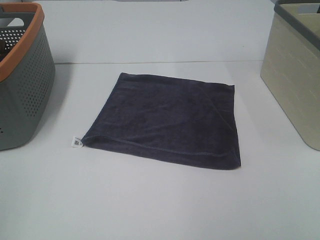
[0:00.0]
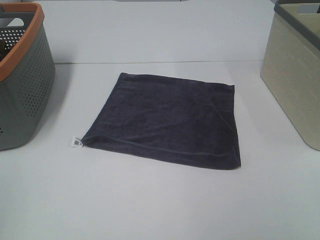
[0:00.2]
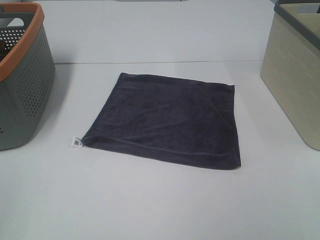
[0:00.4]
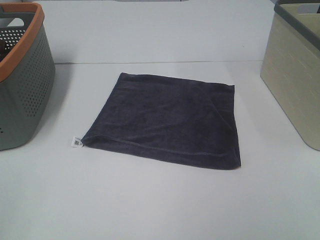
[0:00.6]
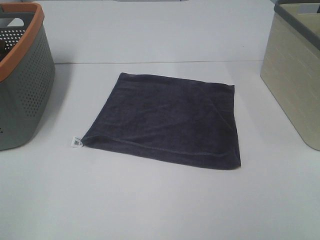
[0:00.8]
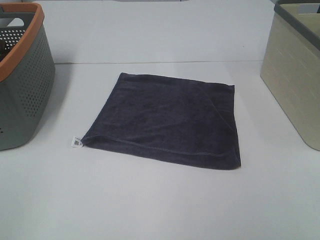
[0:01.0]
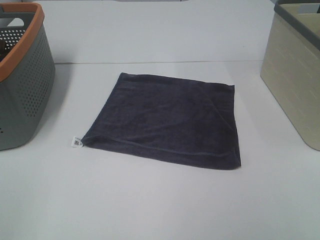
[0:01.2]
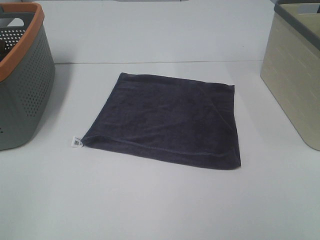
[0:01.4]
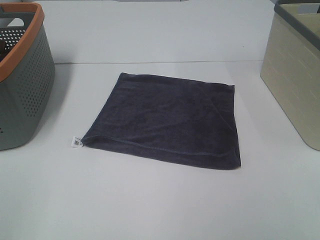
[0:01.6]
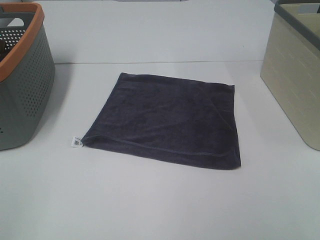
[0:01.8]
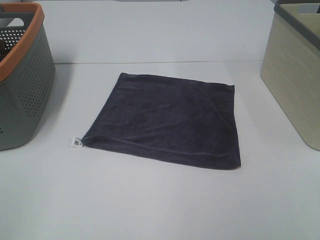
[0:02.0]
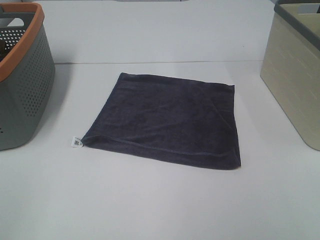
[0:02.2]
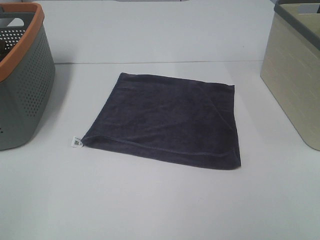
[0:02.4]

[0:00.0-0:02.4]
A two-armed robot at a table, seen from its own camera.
Task of the whole recording: Remove the towel and place it.
0:01.2 to 0:02.4: Neither gripper changes place.

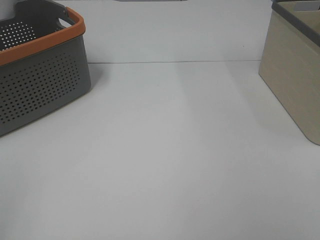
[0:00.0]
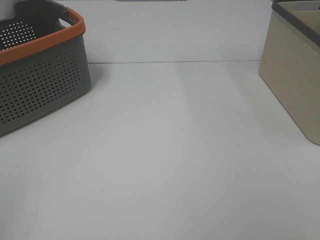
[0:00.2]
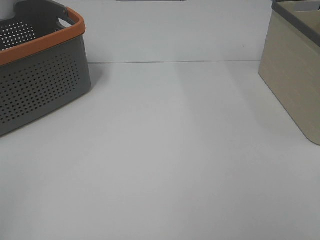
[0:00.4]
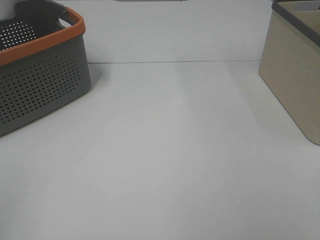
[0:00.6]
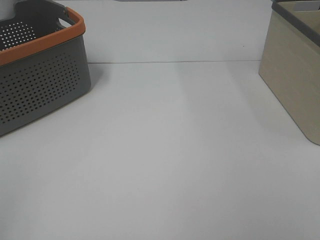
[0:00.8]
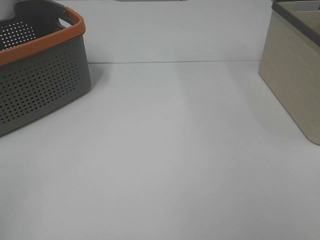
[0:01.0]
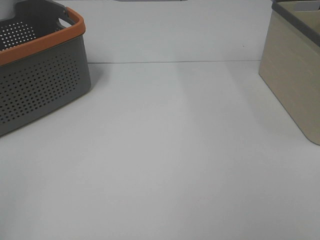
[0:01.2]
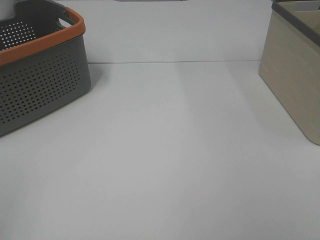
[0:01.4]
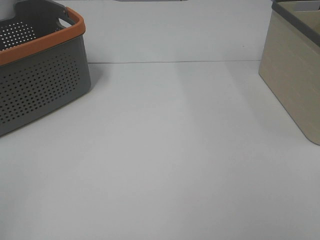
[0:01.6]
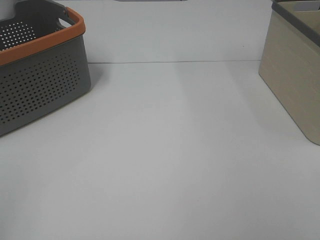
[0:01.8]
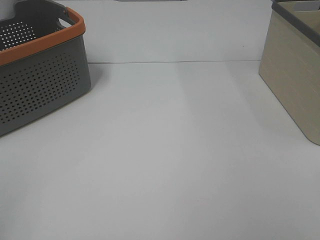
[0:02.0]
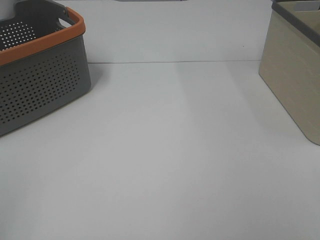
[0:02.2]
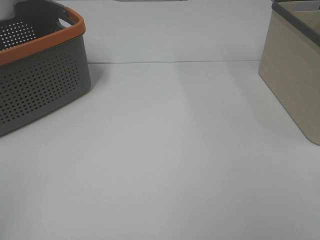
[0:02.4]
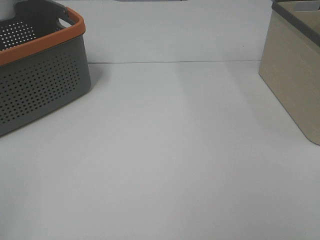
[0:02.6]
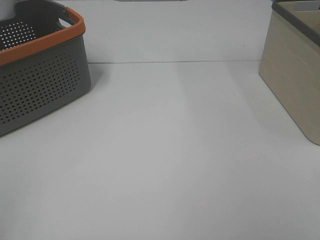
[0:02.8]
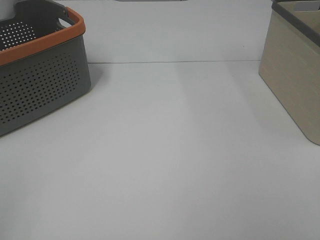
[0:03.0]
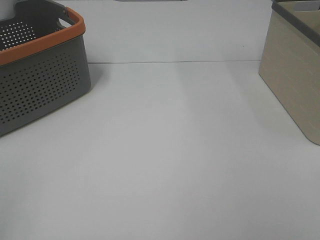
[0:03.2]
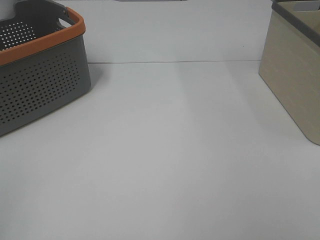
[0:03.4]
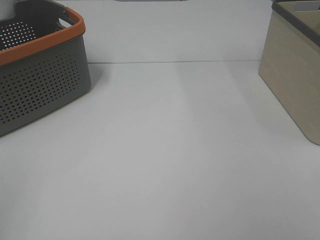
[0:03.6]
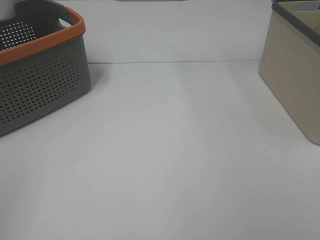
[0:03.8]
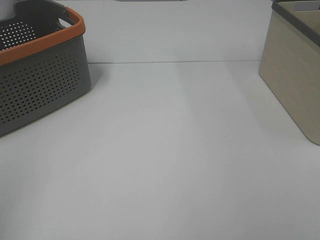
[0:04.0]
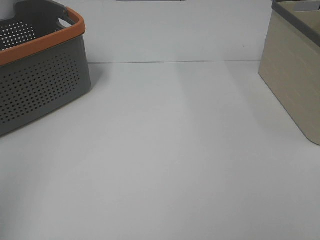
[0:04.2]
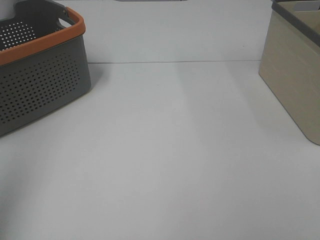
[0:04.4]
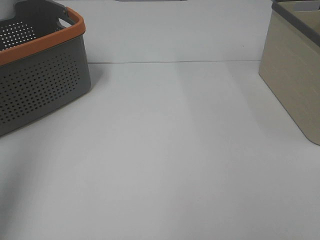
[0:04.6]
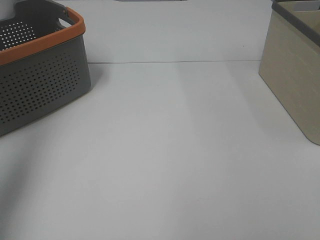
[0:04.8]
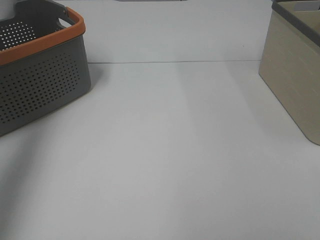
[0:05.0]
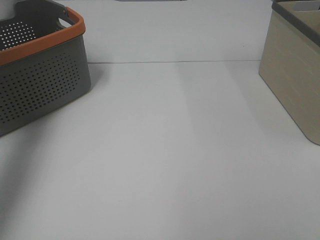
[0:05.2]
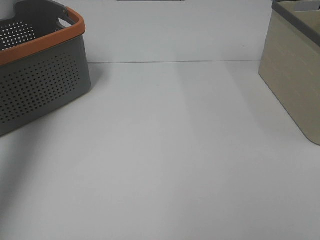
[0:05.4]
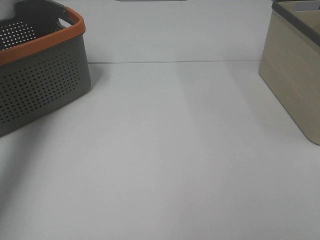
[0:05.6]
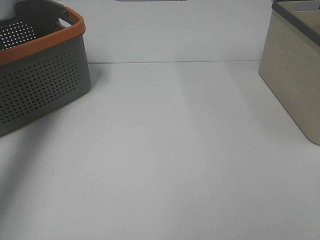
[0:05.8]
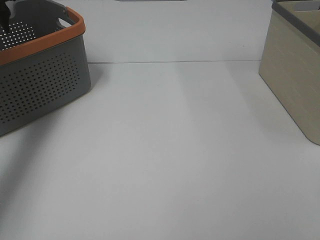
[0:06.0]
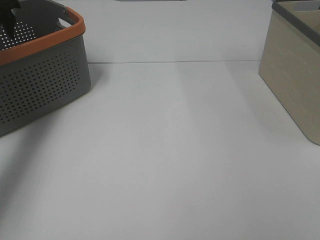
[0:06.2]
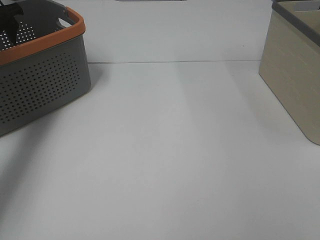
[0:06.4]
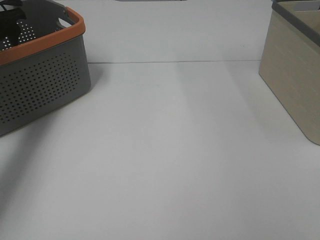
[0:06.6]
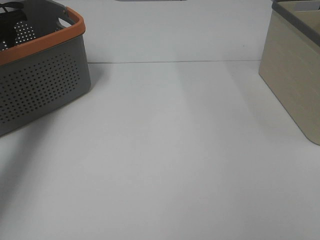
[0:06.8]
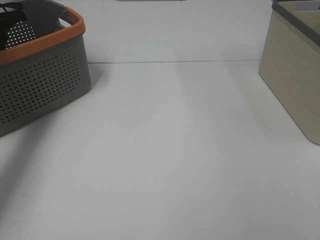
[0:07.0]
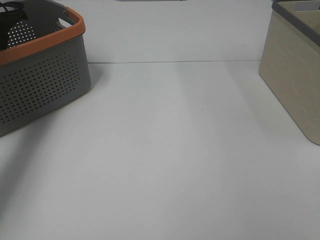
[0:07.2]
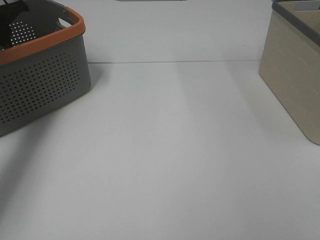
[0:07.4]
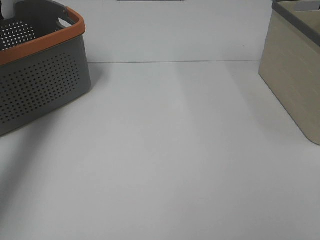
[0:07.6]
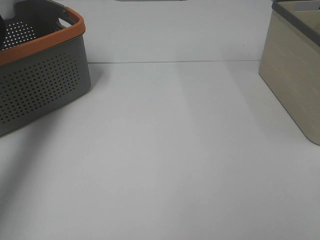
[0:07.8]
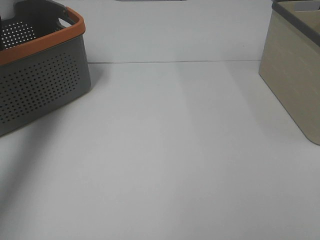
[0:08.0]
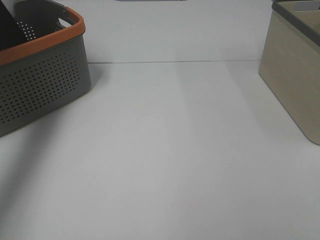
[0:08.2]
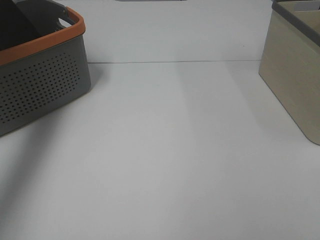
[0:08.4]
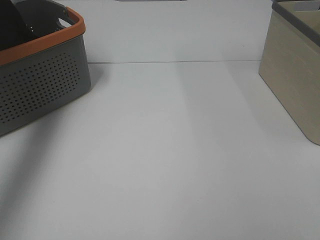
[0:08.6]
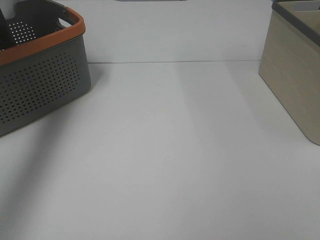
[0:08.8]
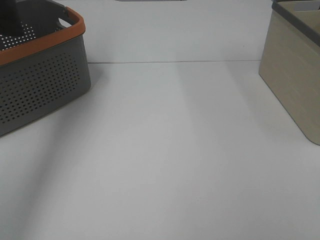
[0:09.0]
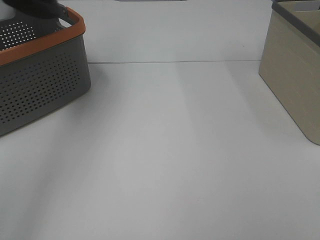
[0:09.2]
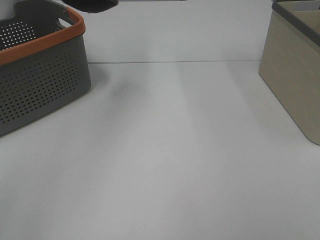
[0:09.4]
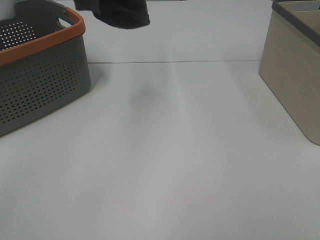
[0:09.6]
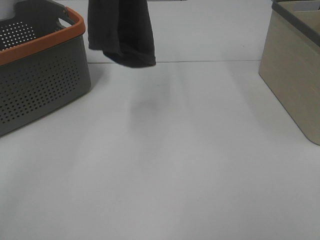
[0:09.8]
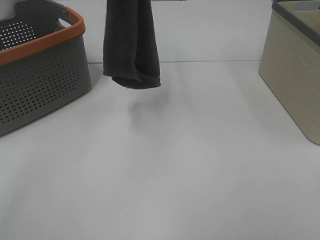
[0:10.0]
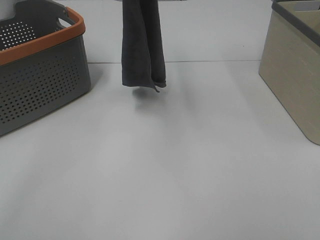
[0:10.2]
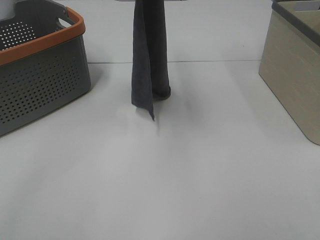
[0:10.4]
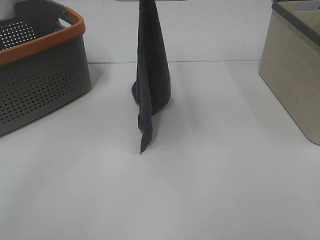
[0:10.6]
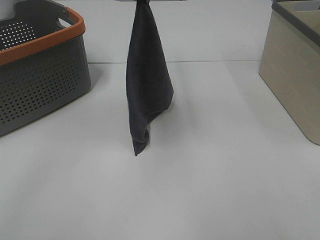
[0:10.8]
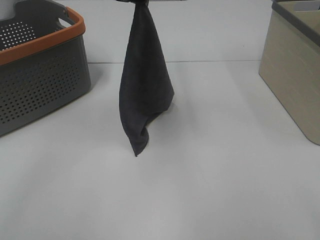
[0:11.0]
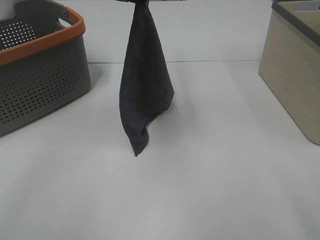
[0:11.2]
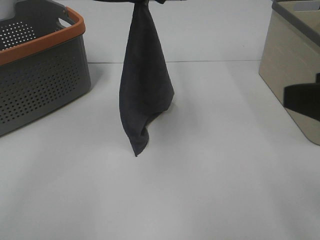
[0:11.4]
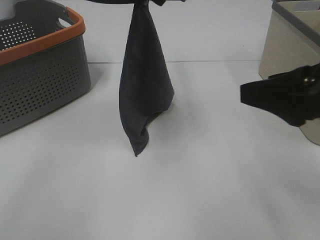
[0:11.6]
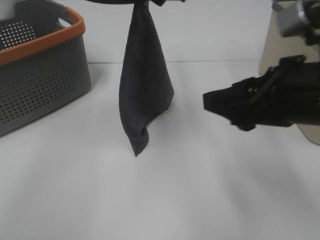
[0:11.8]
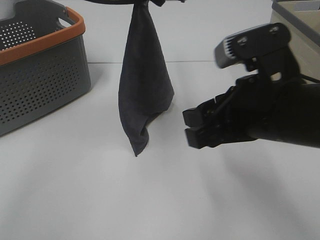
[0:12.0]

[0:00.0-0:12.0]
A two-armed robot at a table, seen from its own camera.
Task of the whole recording: Remove the towel and place it.
0:00.0 to 0:03.0: Both grippers stay put.
0:03.0 to 0:04.4: The left gripper is displaced forward and upward by some 15 cm.
0:04.4 to 0:06.0: The left gripper shifts some 35 cm forward.
0:07.6 to 0:09.0: The left gripper heads upward and backward, covering approximately 30 cm.
0:09.0 to 0:10.4: The left gripper is displaced to the right and downward by some 25 cm.
0:10.4 to 0:12.0: The left gripper goes some 5 cm downward; the right gripper shifts some 25 cm forward and to the left.

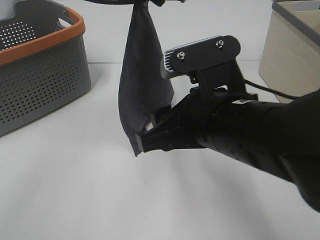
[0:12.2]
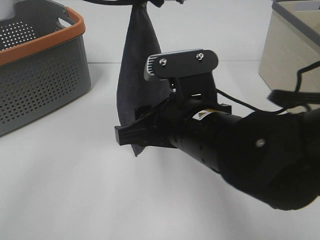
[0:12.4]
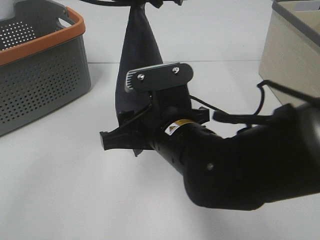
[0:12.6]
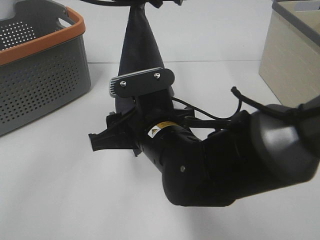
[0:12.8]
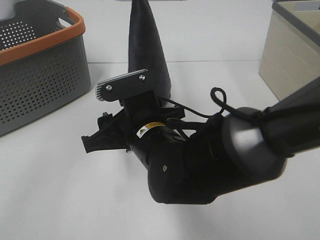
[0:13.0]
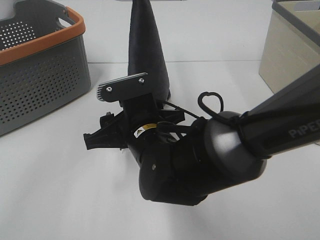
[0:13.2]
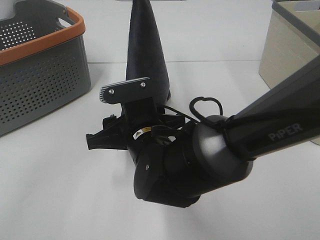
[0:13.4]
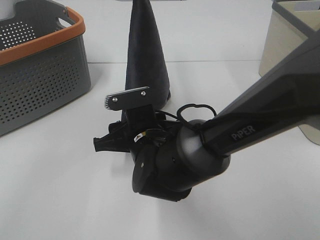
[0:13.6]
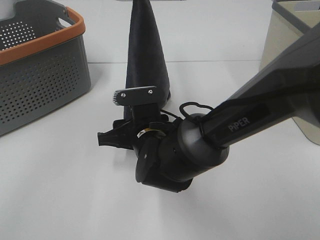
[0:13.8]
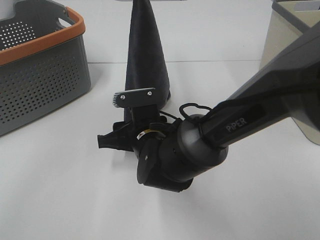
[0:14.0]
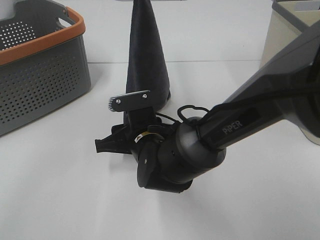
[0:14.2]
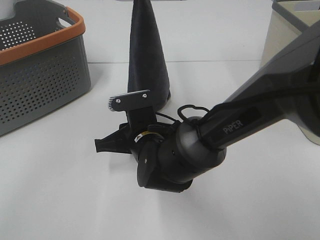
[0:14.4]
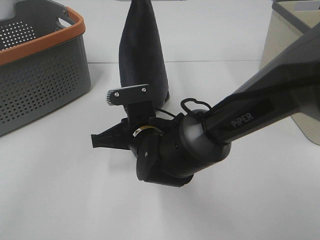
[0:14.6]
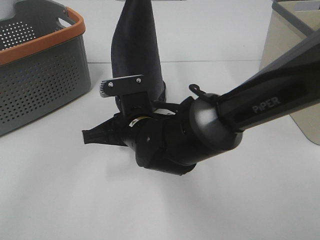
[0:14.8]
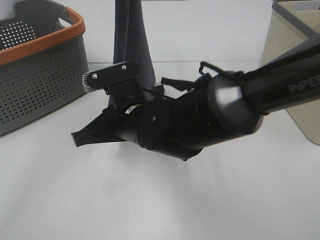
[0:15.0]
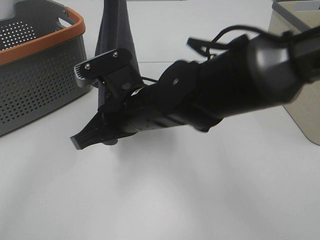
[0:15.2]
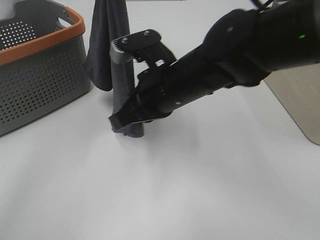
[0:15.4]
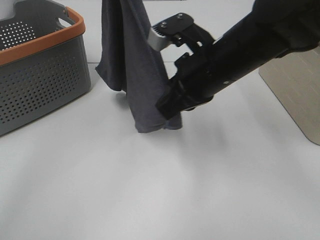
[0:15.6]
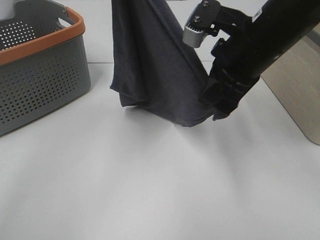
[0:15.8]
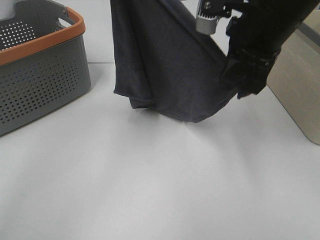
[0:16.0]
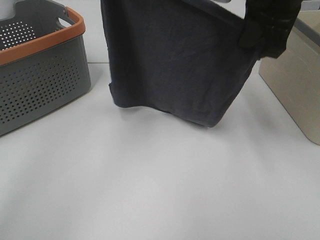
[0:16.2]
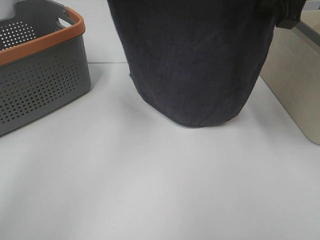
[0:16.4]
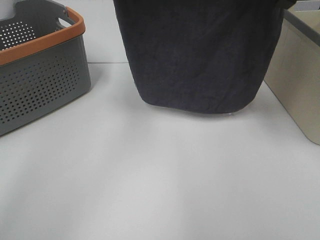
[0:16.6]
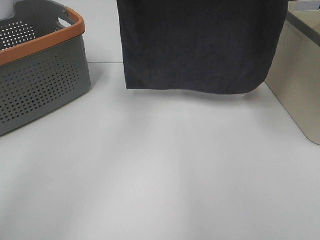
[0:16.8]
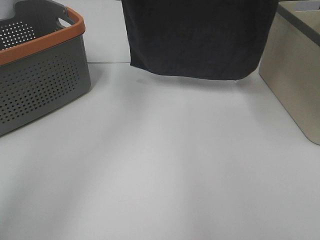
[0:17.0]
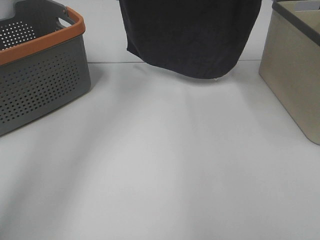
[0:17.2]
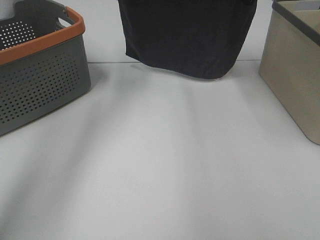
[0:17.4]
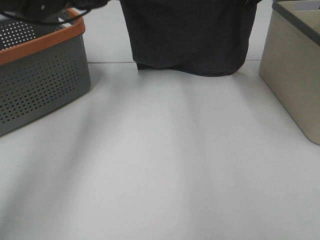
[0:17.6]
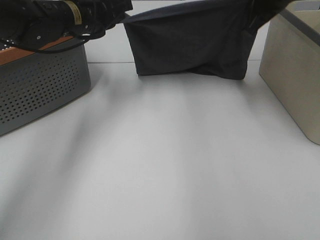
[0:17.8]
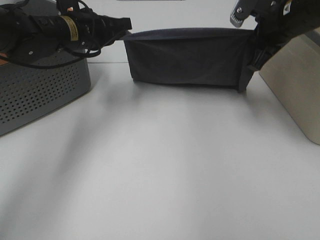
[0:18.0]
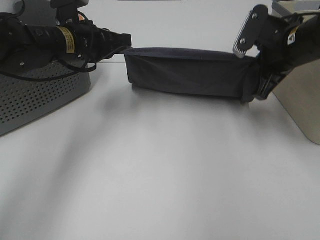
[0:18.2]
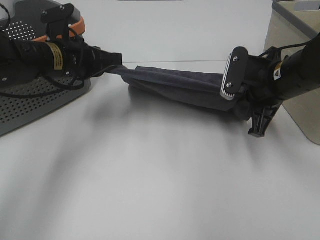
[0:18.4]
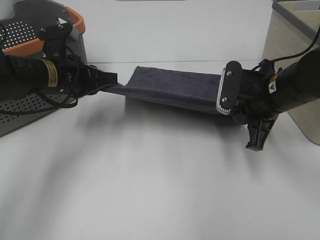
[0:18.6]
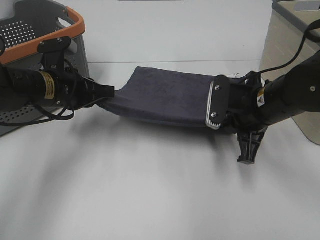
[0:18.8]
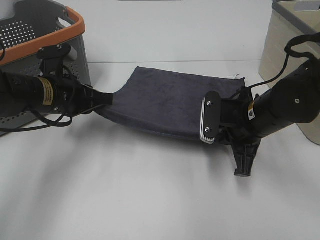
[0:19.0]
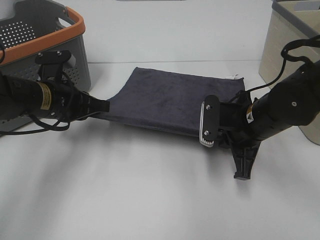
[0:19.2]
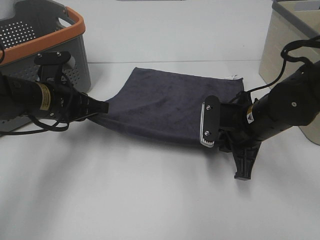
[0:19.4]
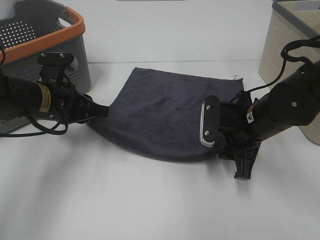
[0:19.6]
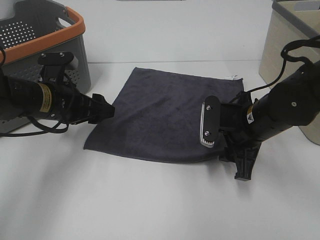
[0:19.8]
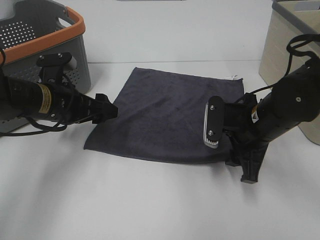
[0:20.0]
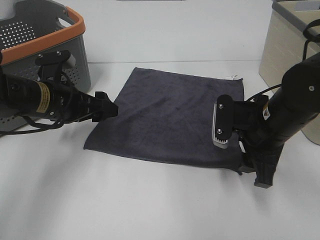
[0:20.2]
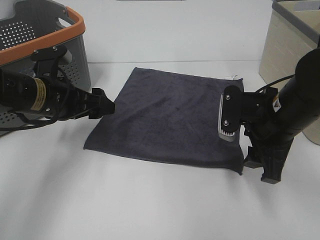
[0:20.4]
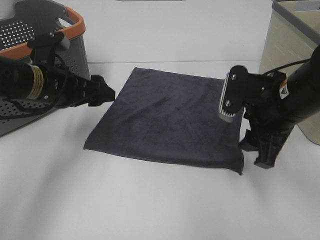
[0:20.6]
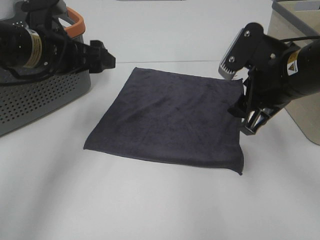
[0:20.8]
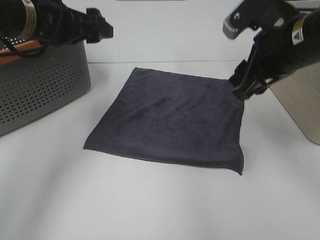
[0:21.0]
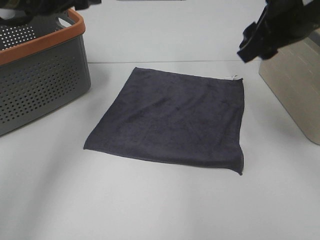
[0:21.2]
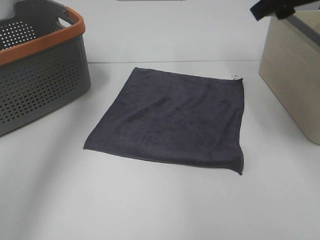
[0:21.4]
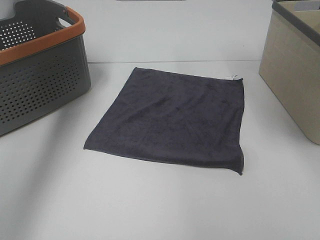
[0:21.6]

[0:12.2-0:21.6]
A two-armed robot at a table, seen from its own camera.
Task of the whole recording: Remove the towel and place it.
Step, 0:13.4 to 0:15.8: Left hand: spread the grey towel flat on the table.
Step, 0:13.4 to 0:16.0: Right hand: spread the grey towel flat on the table.
0:12.2 to 0:13.8: The right gripper travels downward, forward and to the left by approximately 20 cm.
0:13.8 to 0:15.4: The right gripper heads upward and to the right, covering approximately 15 cm, and closes its fingers, while the left gripper is displaced upward and to the left by about 10 cm.
0:15.4 to 0:17.0: The right gripper is displaced to the right, upward and forward by some 25 cm; the left gripper is displaced downward and forward by some 10 cm.
0:17.0 to 0:18.4: Both grippers travel together downward and backward, roughly 20 cm.
0:18.4 to 0:20.0: The right gripper shifts by some 5 cm, and opens. Meanwhile the left gripper changes place by some 5 cm, and opens up.
0:20.0 to 0:21.6: The two grippers go roughly 25 cm upward.
